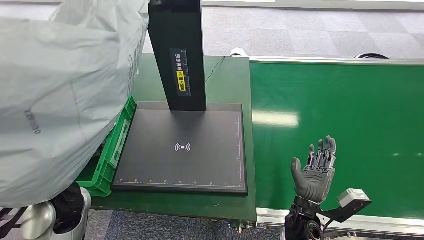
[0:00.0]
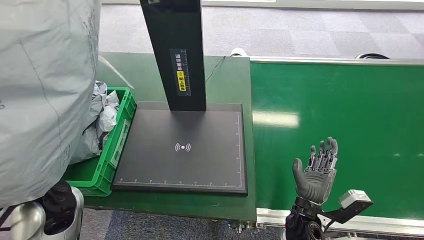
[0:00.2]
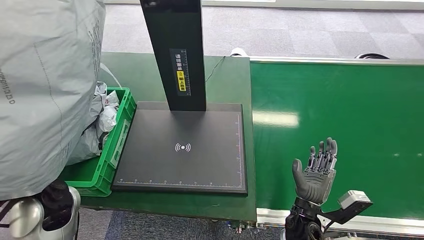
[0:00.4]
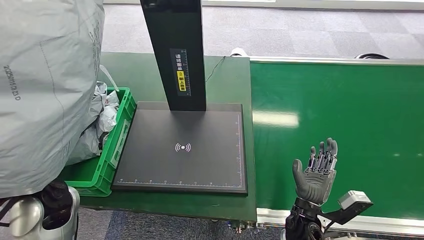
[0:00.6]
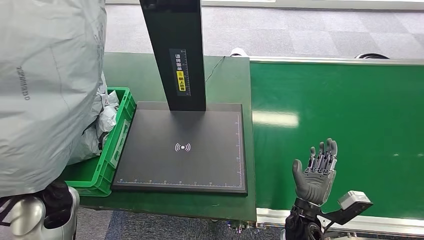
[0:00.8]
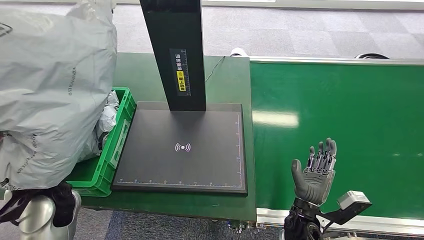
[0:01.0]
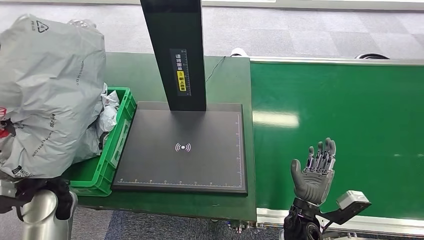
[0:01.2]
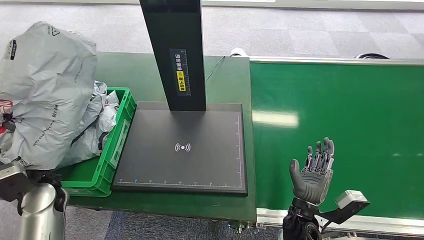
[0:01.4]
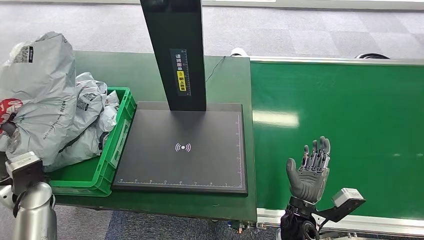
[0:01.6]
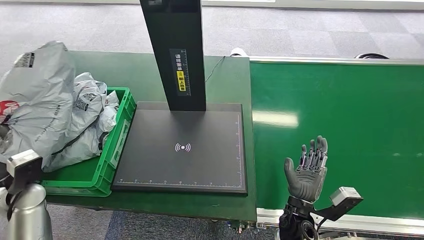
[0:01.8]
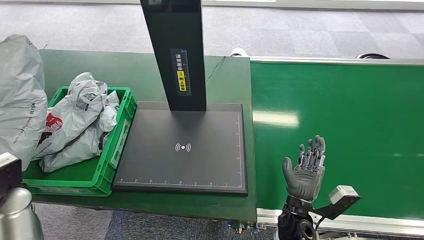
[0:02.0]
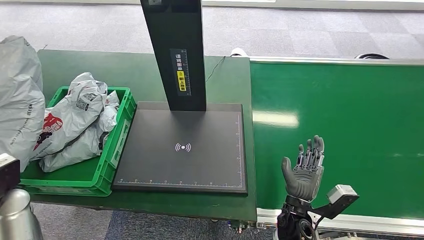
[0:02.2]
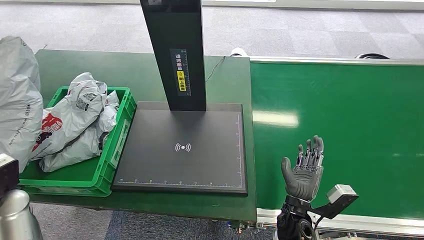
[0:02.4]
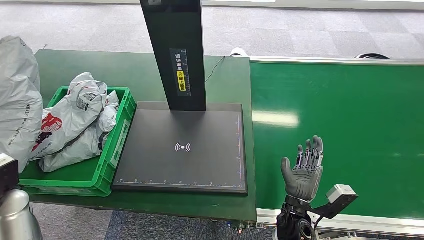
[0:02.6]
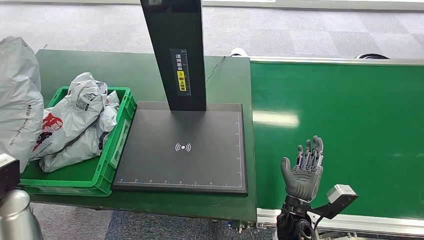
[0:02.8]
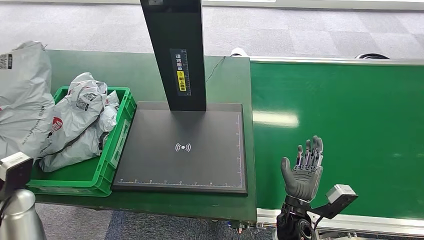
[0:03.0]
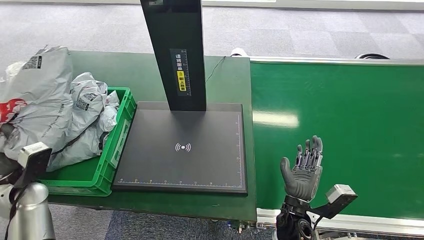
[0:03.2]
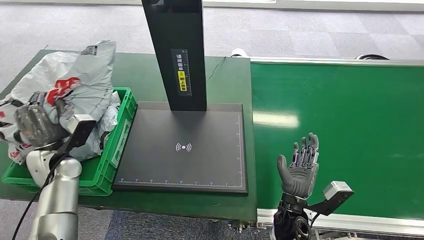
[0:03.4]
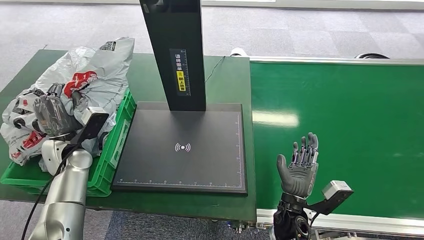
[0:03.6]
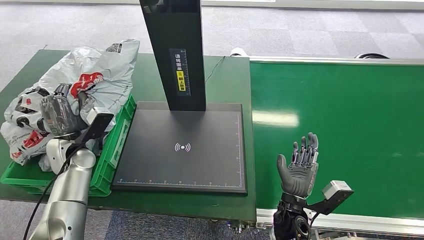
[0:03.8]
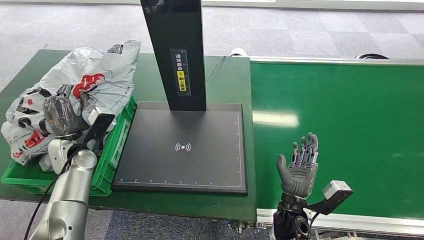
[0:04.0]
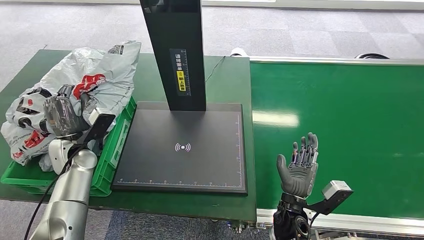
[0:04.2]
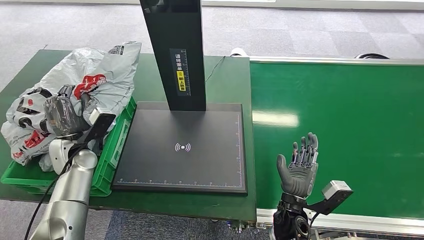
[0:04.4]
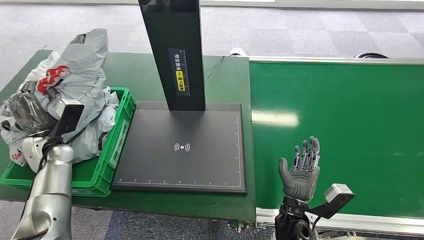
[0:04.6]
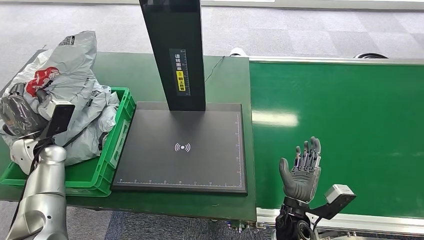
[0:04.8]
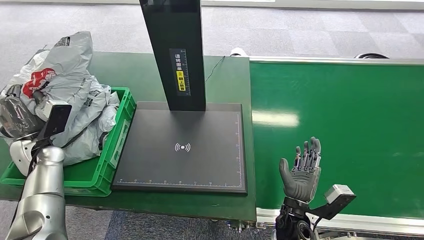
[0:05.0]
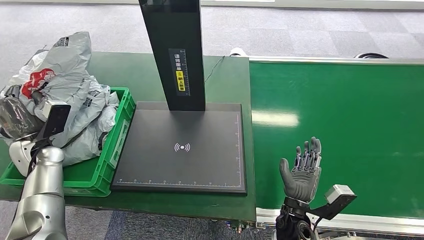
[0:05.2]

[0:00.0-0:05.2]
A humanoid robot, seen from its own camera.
Task of the whole recording: Weigh the package on the weighing device and place it in the left basket.
Step, 0:00.2 to 0:05.2: Place the package into the parcel locker.

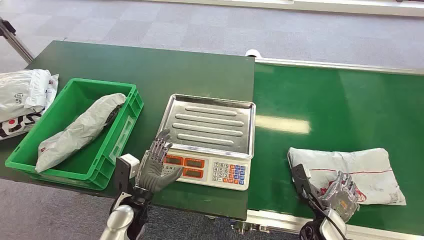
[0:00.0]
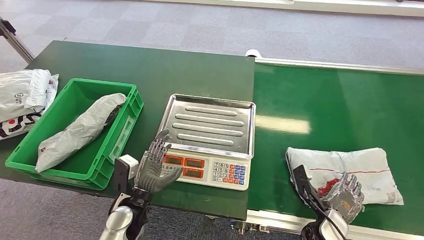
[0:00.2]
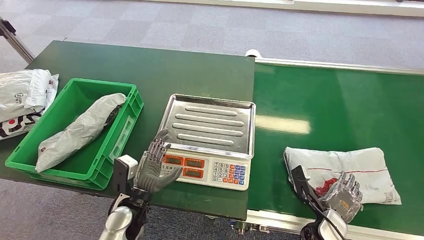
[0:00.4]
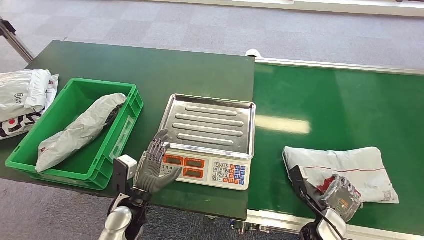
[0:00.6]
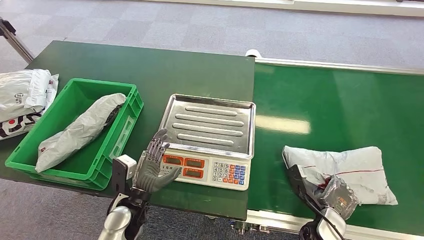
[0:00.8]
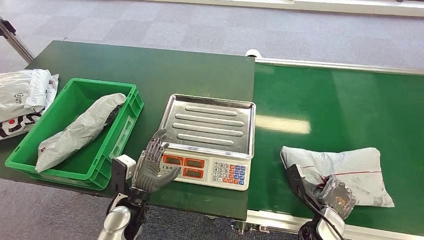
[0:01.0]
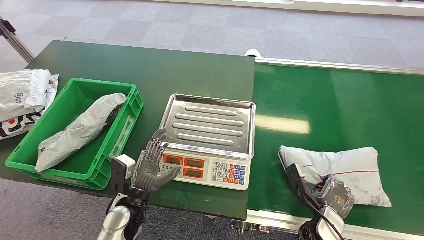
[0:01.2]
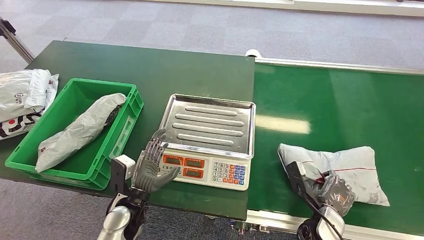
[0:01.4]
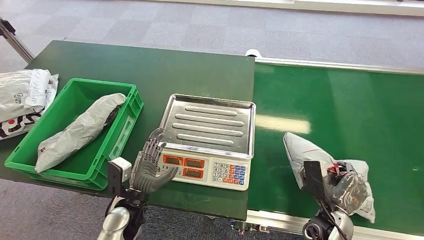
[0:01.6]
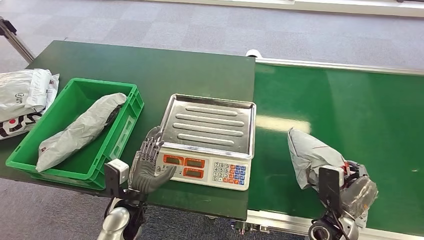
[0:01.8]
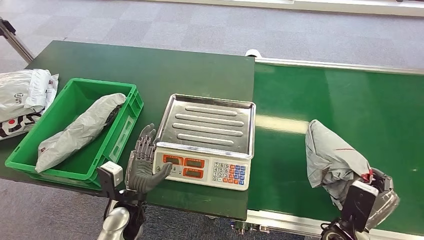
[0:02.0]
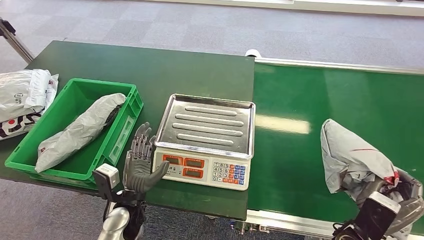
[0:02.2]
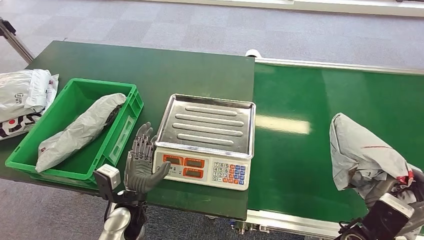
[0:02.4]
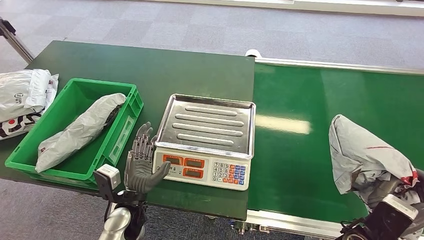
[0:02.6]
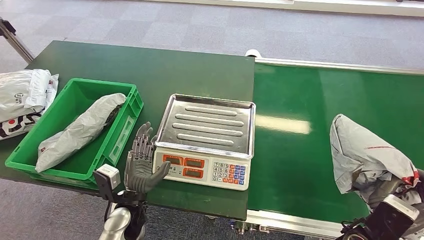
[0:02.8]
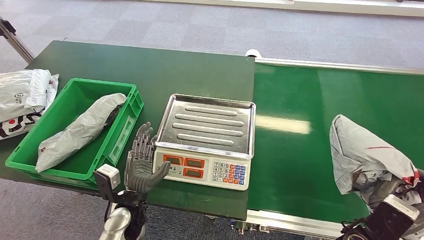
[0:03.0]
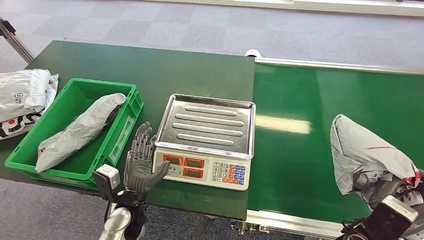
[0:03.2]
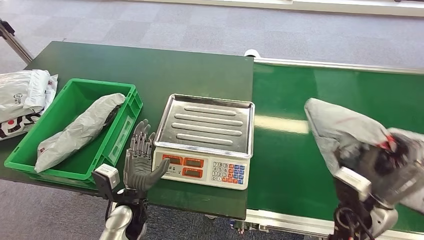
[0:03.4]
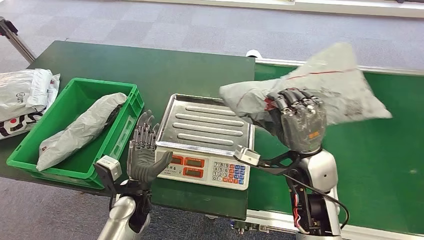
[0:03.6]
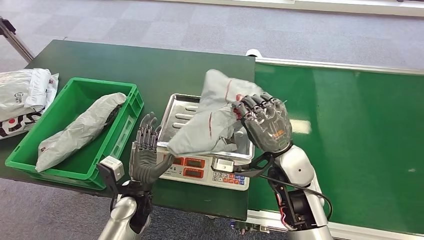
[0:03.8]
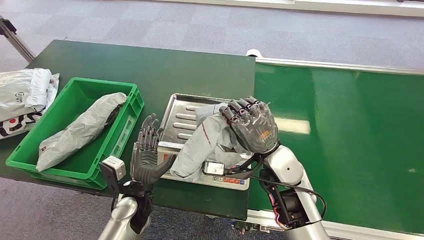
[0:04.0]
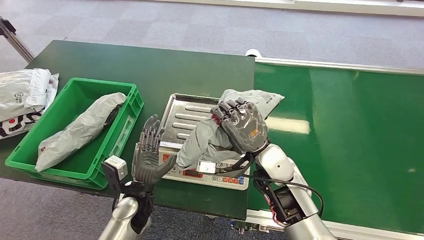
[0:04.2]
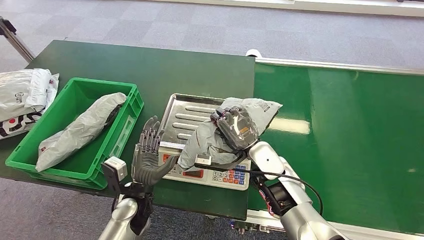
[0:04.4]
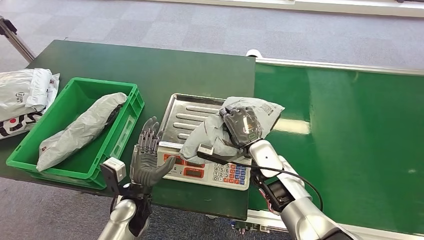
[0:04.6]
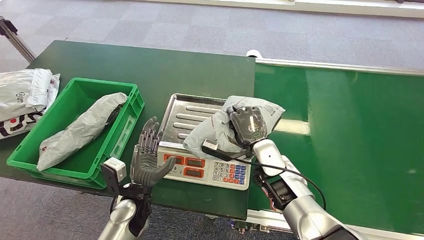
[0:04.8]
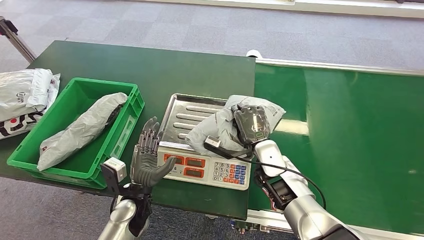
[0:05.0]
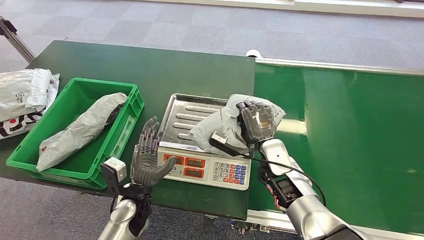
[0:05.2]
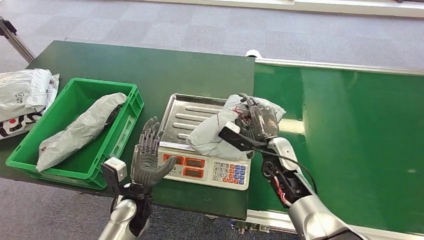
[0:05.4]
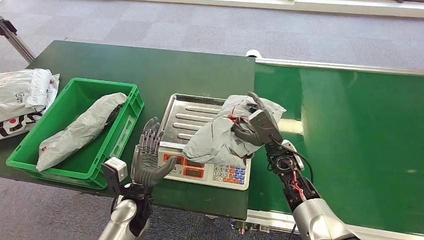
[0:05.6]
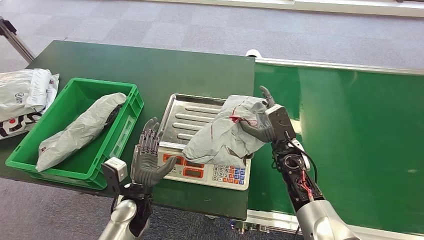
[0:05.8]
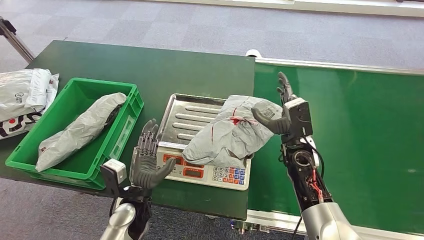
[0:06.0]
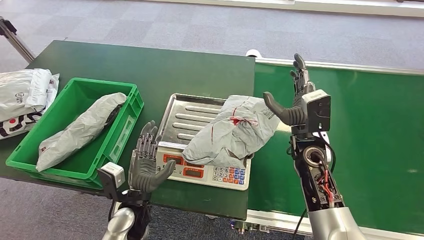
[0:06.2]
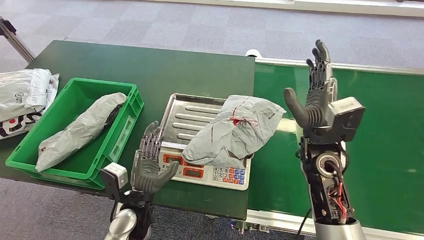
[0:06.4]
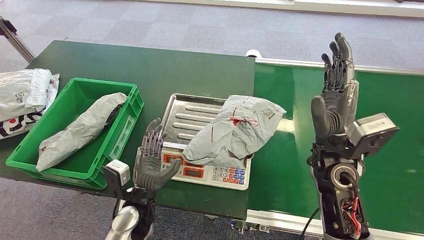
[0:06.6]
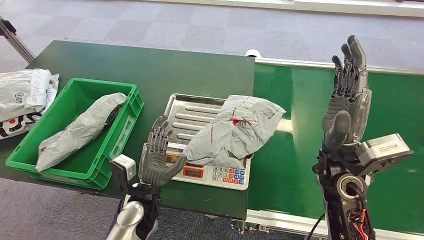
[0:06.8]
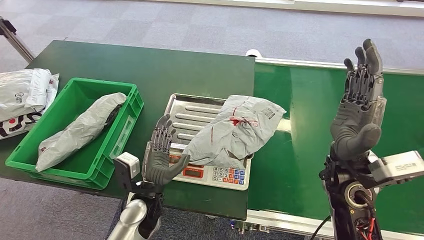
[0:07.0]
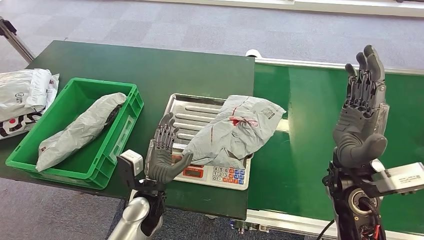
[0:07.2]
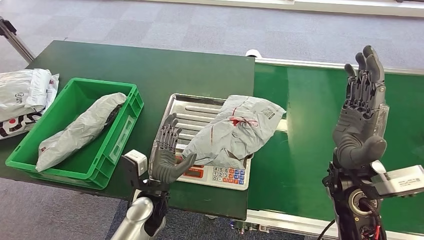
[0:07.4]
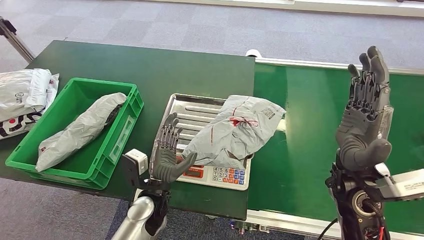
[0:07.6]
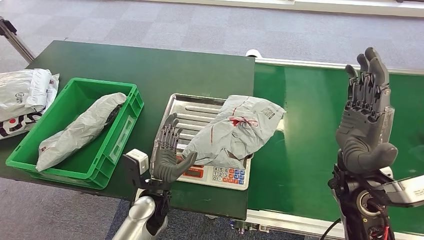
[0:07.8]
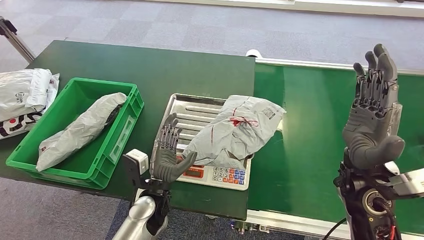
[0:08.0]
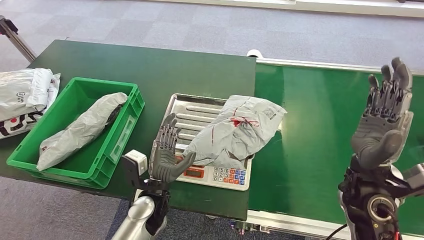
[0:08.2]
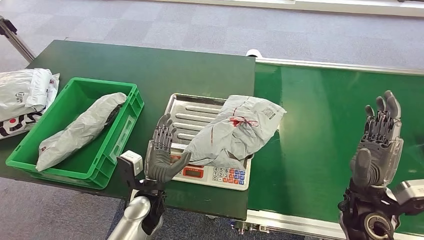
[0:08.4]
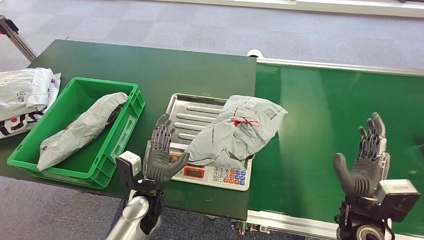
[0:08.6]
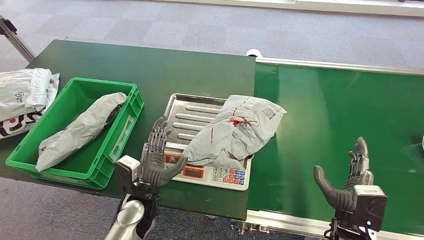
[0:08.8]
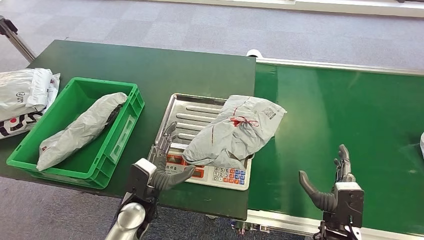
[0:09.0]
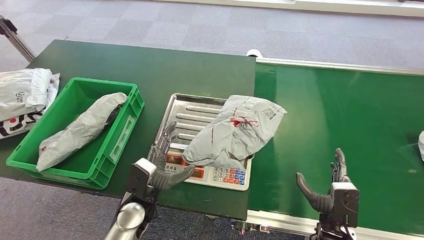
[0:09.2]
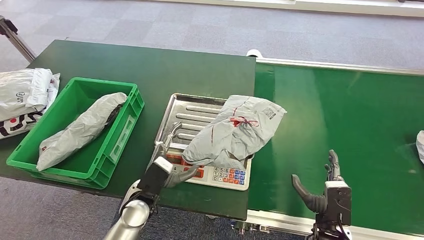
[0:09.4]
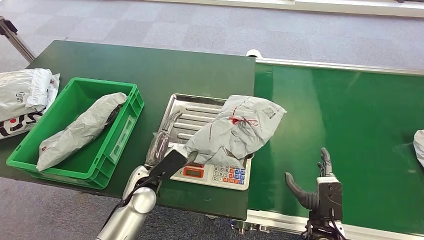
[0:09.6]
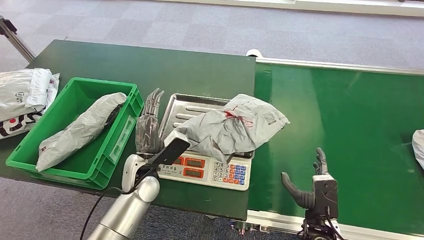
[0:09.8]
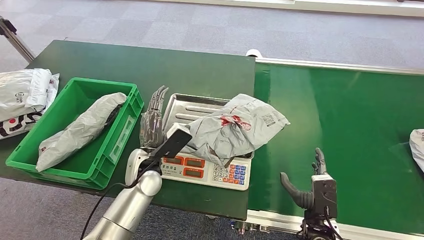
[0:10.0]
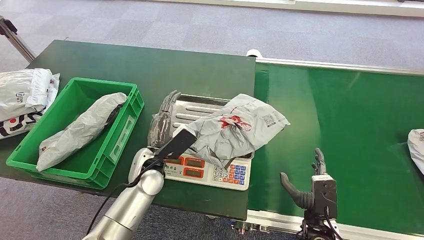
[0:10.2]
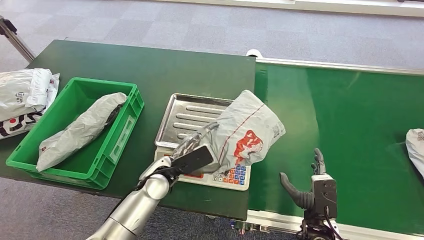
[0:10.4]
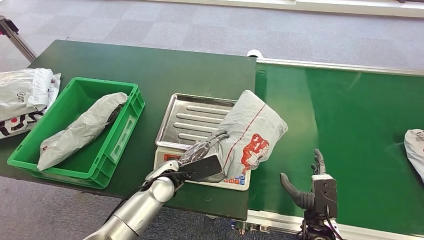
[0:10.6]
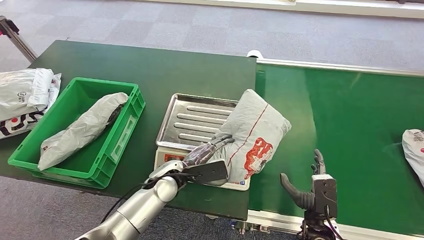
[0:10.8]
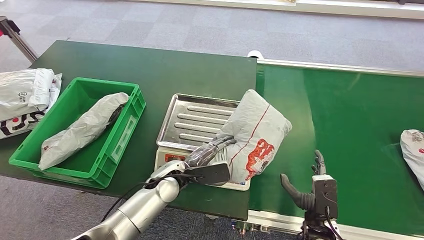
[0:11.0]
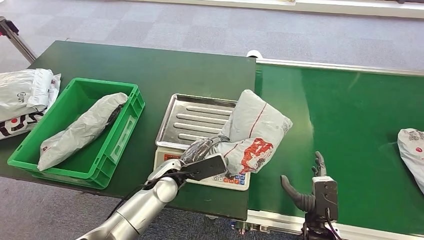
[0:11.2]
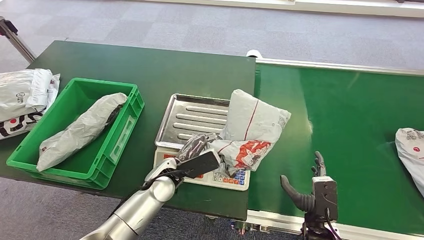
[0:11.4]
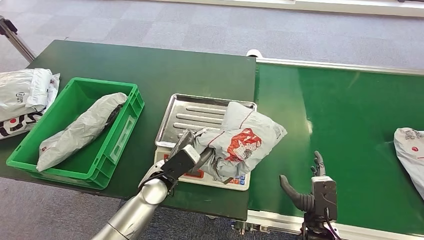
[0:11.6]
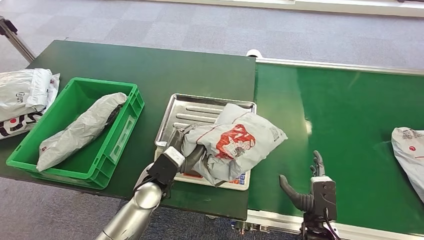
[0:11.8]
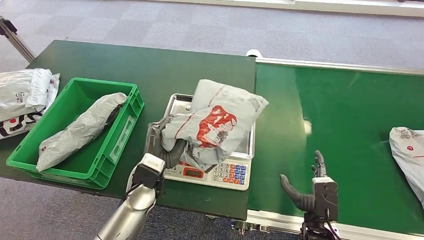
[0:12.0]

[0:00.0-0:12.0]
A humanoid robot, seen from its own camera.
Task of the whole recording: Weigh the package on the weighing device and place it in the left basket.
Step, 0:00.0 to 0:02.2: Pick up the package from the conveyor belt.
Step, 0:02.4 to 0:05.8: Place the package onto the inbound machine.
0:01.6 to 0:03.0: The right hand goes roughly 5 cm upward.
0:04.4 to 0:06.0: The right hand is displaced to the right by about 10 cm.
0:06.0 to 0:07.6: The left hand shifts by approximately 5 cm. Meanwhile the right hand shifts some 15 cm upward, backward and to the right.
0:07.6 to 0:09.0: The right hand moves downward and backward, about 20 cm.
0:09.0 to 0:10.4: The left hand shifts about 5 cm forward.
